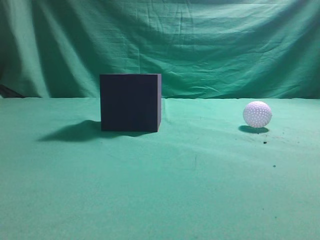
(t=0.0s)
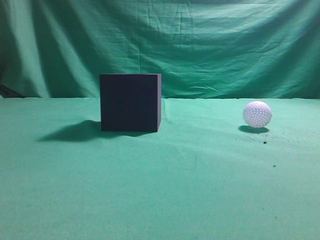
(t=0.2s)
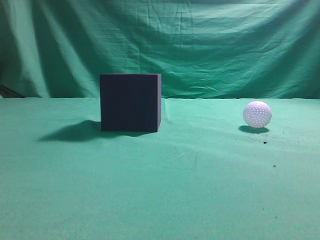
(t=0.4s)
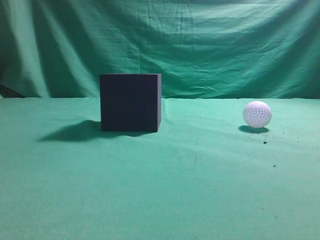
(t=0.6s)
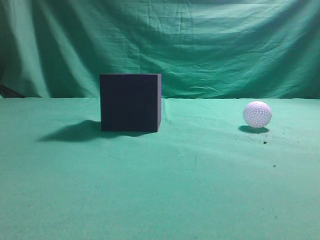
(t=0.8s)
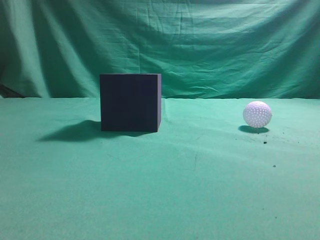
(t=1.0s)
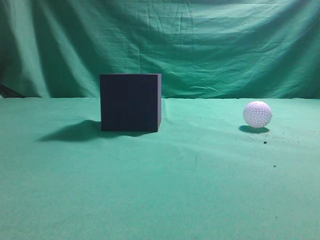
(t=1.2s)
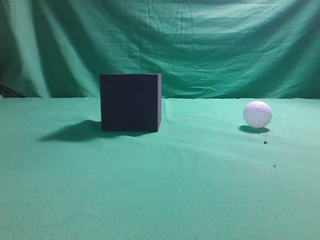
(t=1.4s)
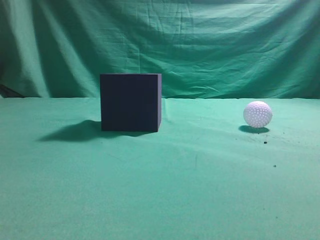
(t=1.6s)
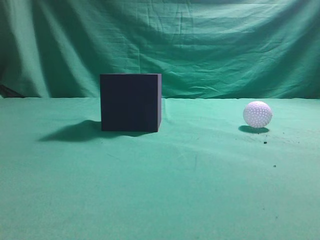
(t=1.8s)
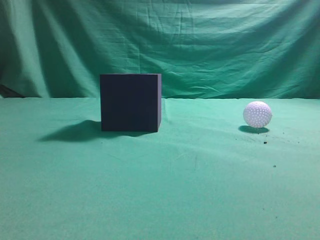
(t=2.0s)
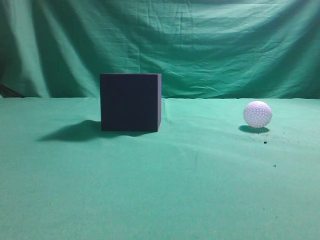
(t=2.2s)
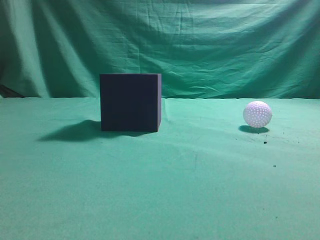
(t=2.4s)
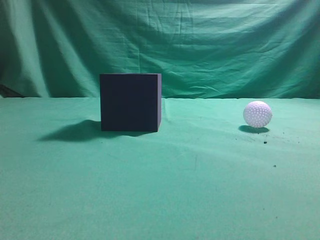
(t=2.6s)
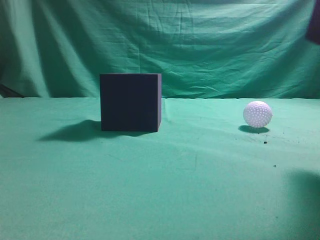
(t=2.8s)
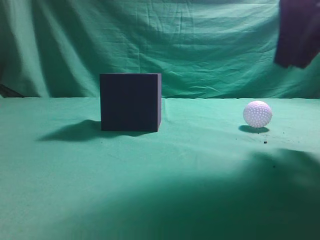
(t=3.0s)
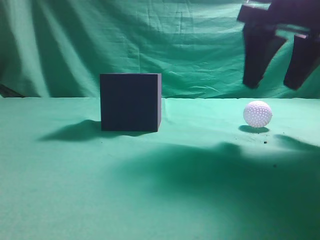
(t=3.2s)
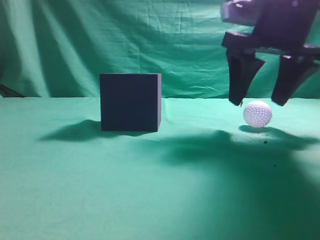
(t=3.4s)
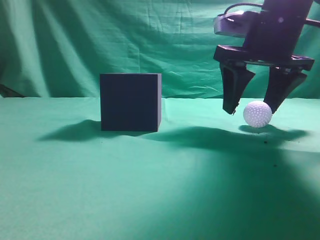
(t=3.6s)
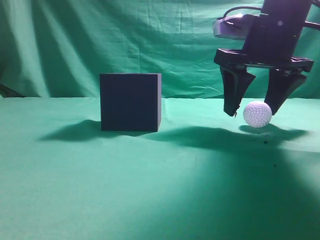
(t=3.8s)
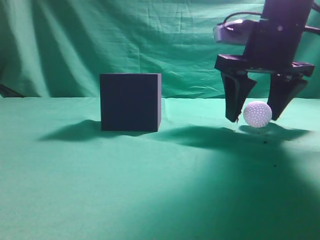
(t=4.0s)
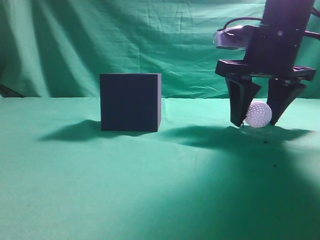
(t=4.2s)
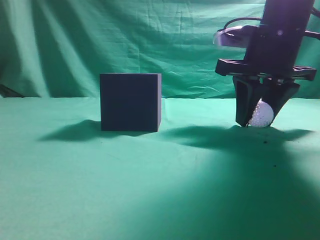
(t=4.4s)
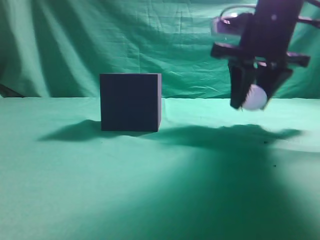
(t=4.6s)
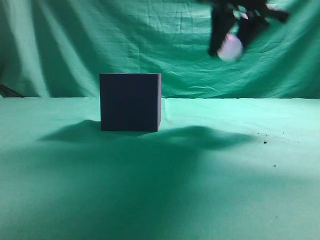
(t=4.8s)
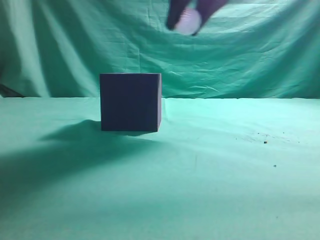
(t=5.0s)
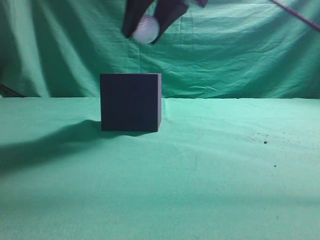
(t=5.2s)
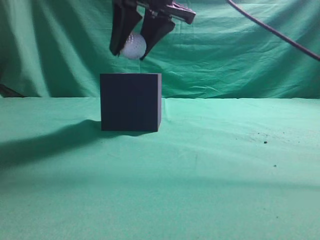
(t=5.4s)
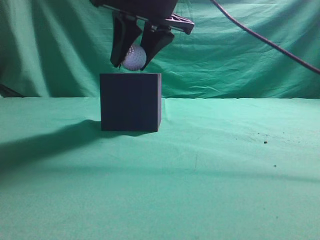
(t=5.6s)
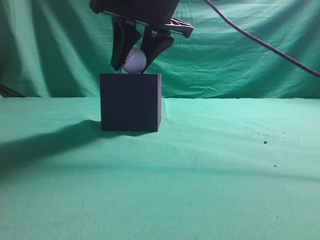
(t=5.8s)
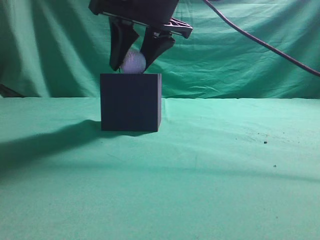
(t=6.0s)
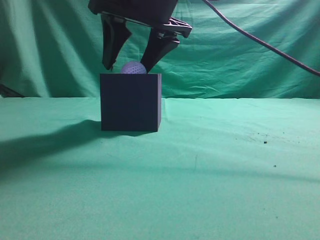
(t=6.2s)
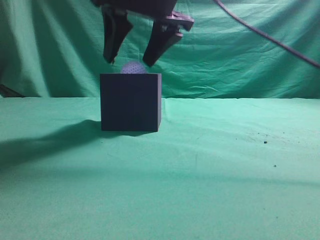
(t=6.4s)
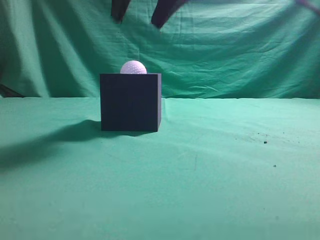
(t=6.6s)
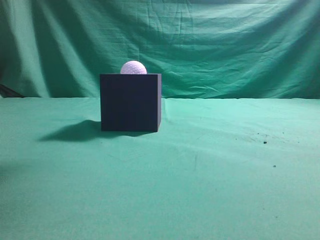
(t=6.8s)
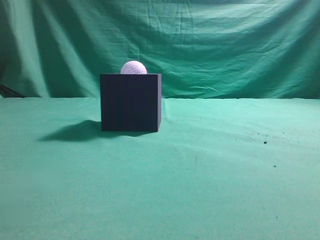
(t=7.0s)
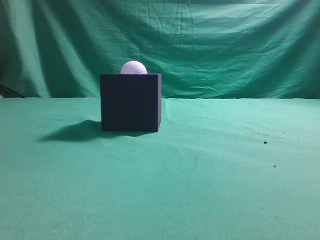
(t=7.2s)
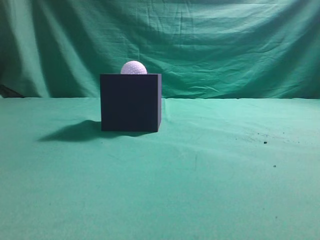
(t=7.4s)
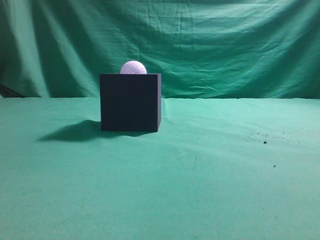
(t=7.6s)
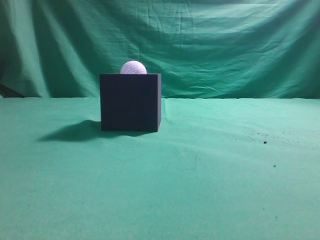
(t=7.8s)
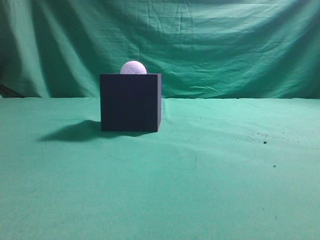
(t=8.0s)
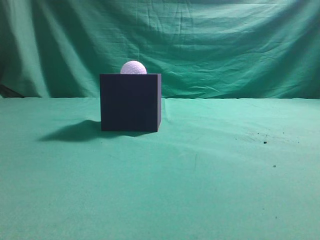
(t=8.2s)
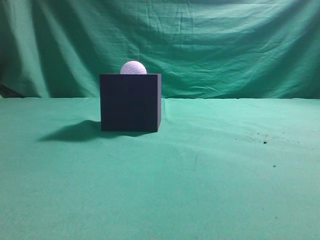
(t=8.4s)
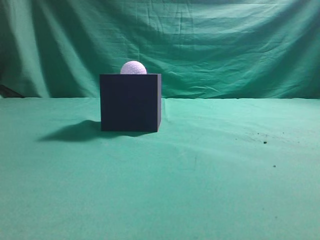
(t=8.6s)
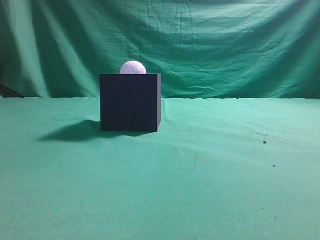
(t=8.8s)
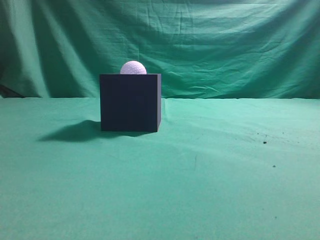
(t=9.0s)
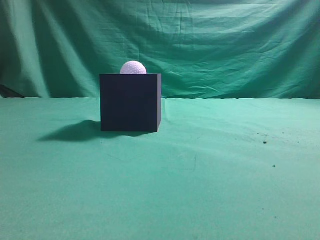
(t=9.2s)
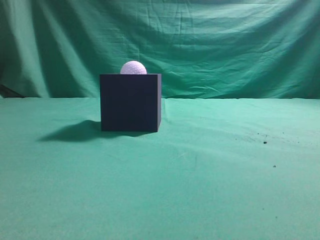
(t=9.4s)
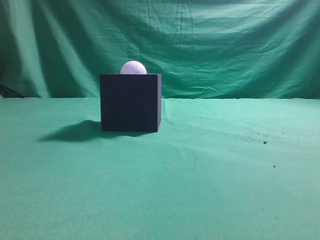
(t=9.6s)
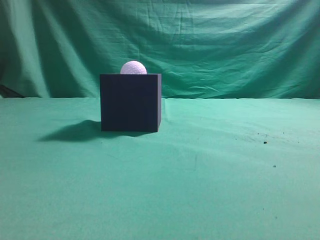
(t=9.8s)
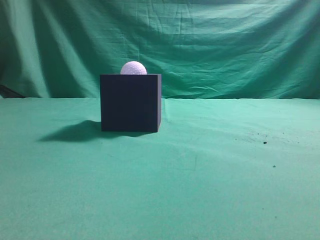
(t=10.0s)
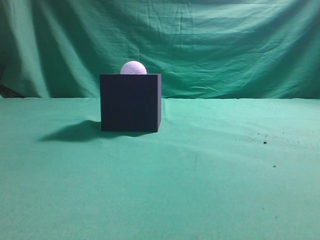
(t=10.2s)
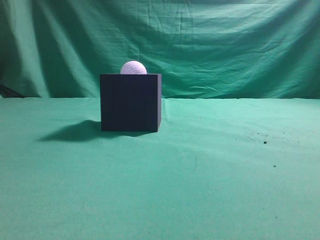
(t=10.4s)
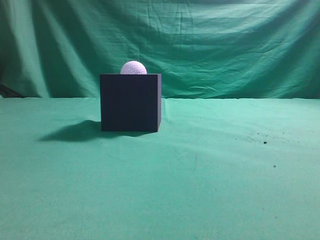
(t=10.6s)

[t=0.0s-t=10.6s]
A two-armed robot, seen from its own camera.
Task of the whole recording: Pick up the ball and place it in the circular groove above the cube.
Step, t=0.0s to t=4.6s: Grasp the sphere on the table.
Step, t=4.8s to t=6.4s: Place the sphere into the sphere-shaped recess.
t=1.6s to t=3.0s: The right gripper shifts about 25 cm forward and to the left.
t=3.0s to t=4.6s: The right gripper travels forward and downward by some 10 cm, and opens, then closes once more.
t=4.6s to t=6.0s: The right gripper goes approximately 15 cm to the left.
t=6.0s to t=7.6s: The right gripper travels upward, backward and to the right by approximately 30 cm, and closes its fingers.
